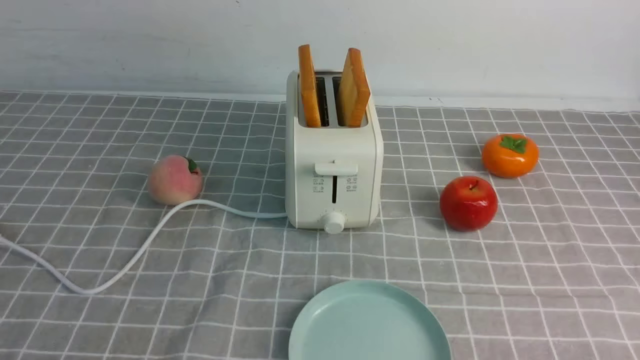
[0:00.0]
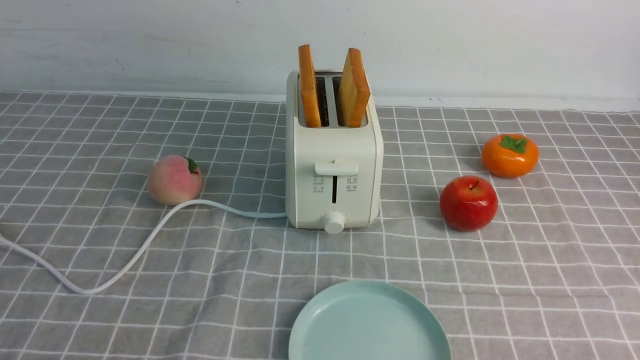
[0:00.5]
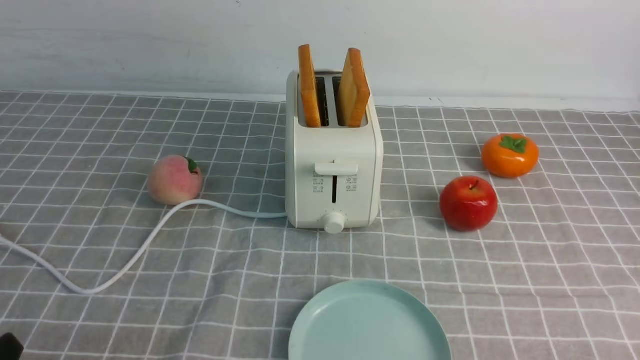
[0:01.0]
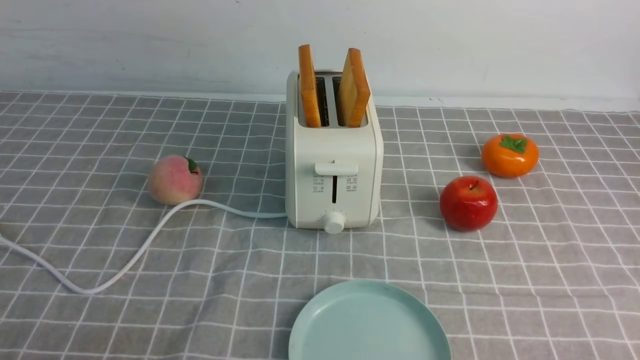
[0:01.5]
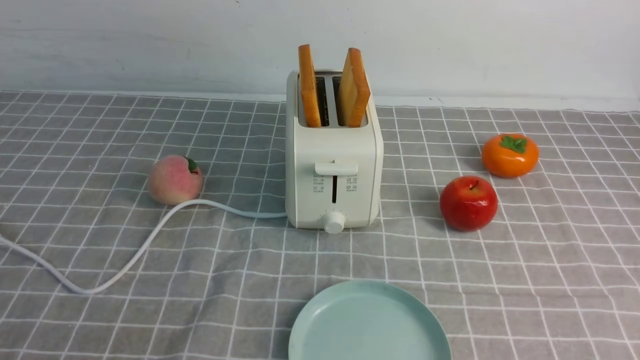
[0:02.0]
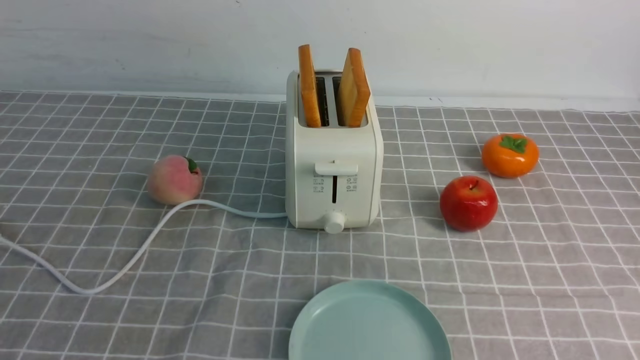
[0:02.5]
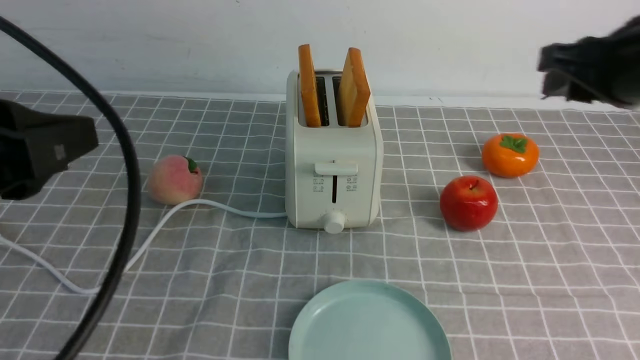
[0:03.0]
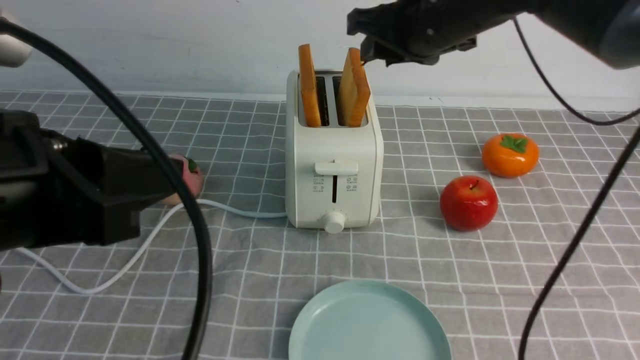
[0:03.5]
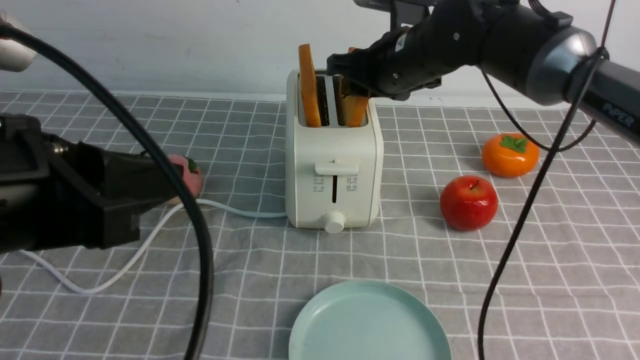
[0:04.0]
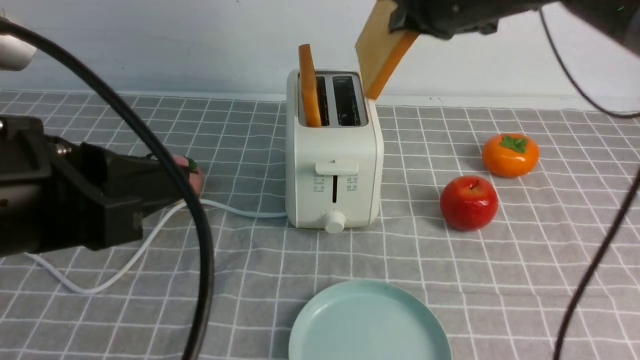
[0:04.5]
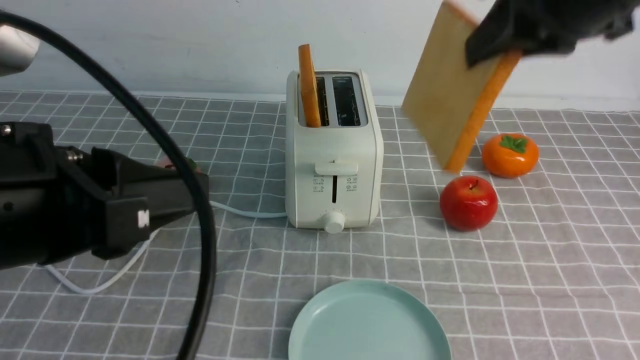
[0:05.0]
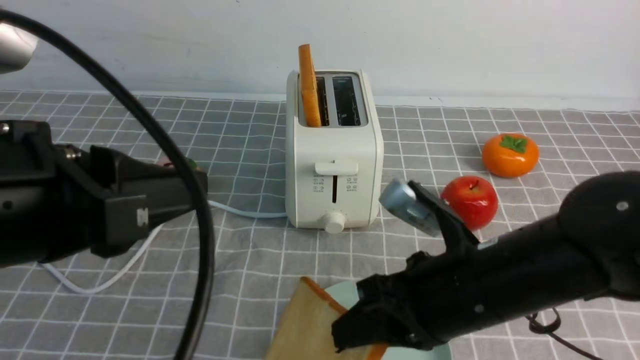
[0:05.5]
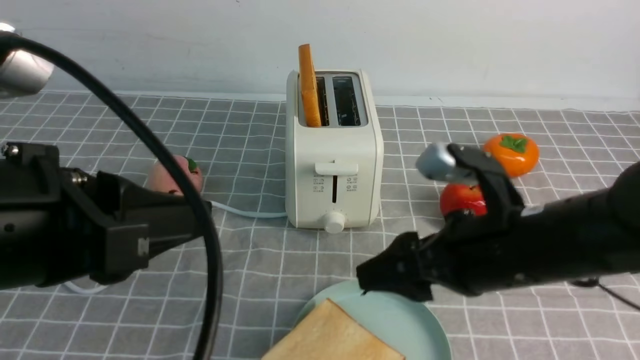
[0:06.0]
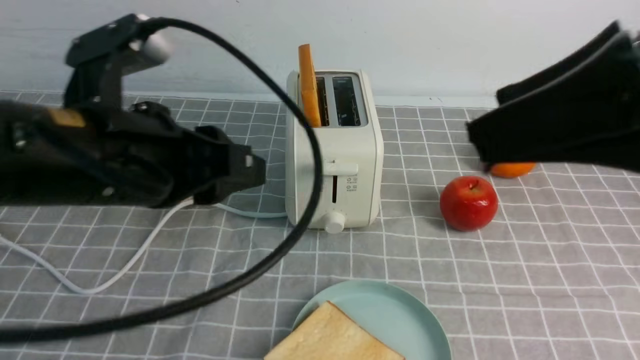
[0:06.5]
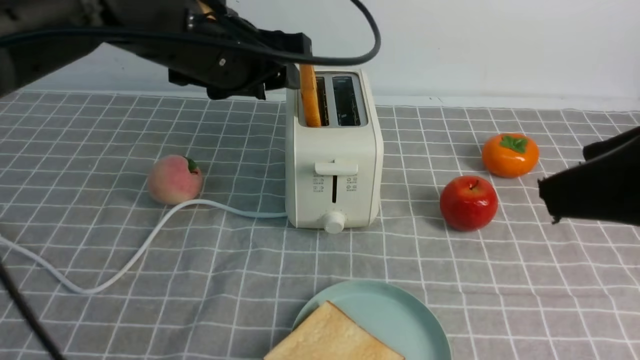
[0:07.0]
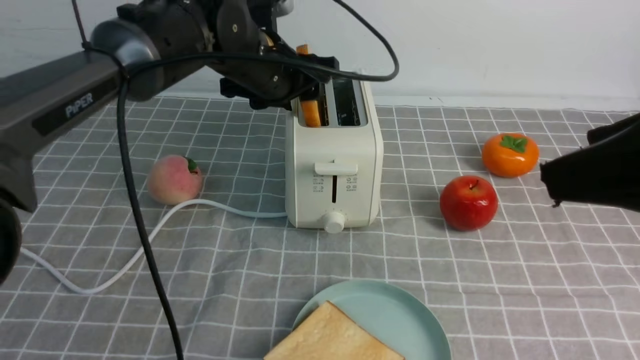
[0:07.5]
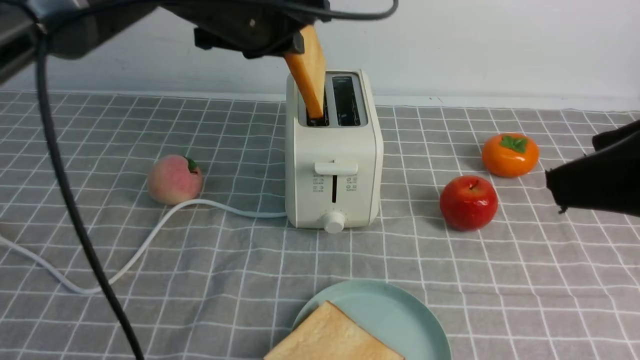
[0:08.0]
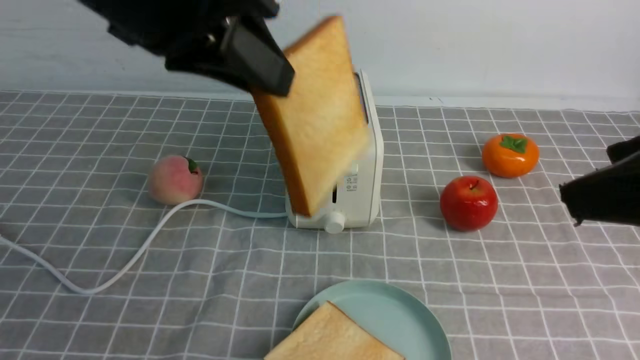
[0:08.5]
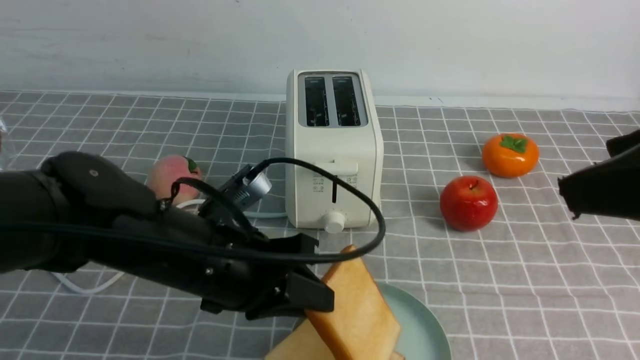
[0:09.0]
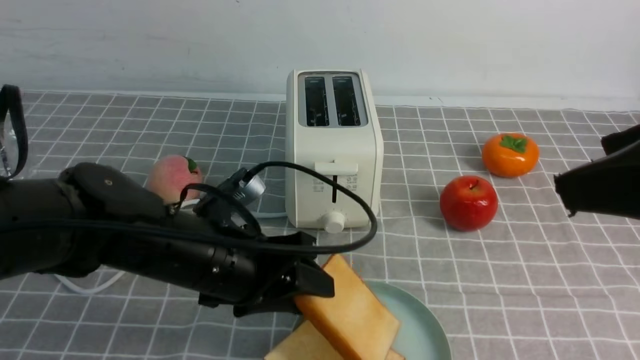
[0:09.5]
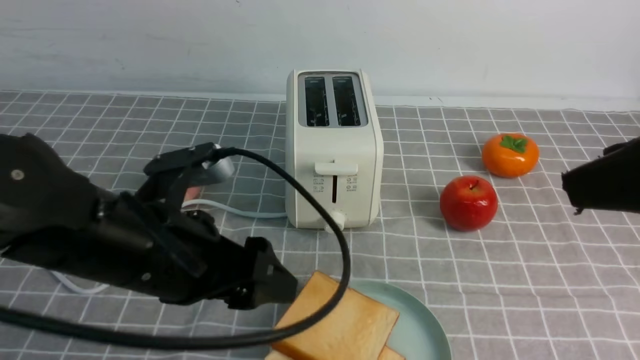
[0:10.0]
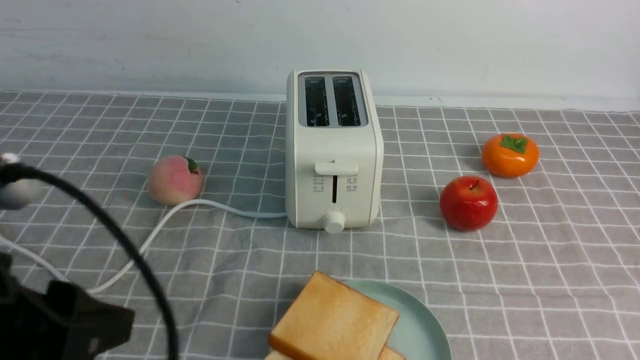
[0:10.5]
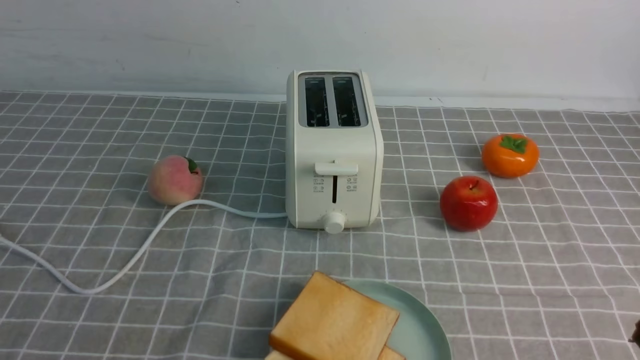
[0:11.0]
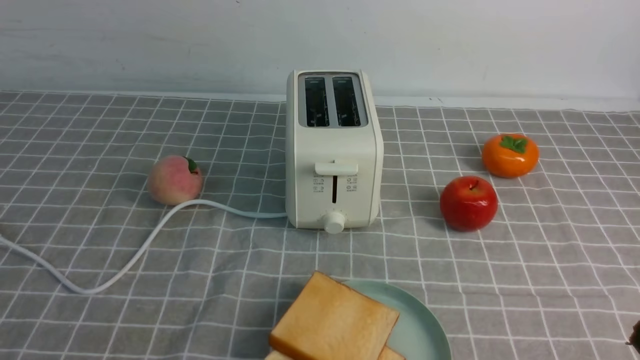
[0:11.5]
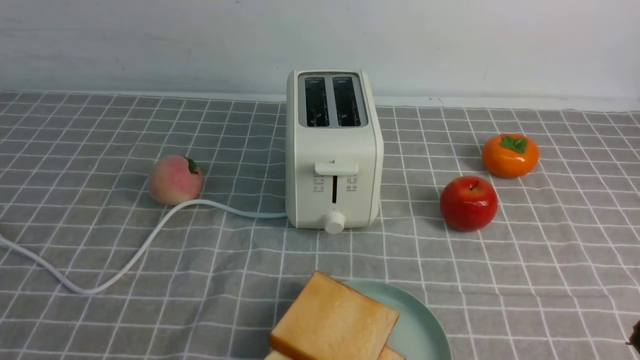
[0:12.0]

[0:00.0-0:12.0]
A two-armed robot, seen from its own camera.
Task of the whole recording: take toasted bread from bread machine on grey coffee table place on plate.
Step, 0:00.0 to 0:04.5: use the right arm to take out a slice of bread.
Step, 0:05.0 to 0:06.0: use the right arm to put a slice of bread into the plate.
Step, 0:06.5 to 0:08.0: use the left arm to take out a slice of bread.
Step, 0:08.5 to 0:09.5: use the left arm to put a slice of bread into the empty plate.
0:02.0 to 0:04.0: The right gripper heads forward and to the left, covering roughly 50 cm. Meanwhile the left gripper goes approximately 15 cm forward, upward and to the right.
0:04.0 to 0:06.0: The right gripper travels backward by about 20 cm, and opens up.
0:06.0 to 0:08.0: The left gripper heads forward, covering about 25 cm. Meanwhile the right gripper is displaced upward, backward and to the right by approximately 20 cm.
0:08.0 to 0:10.0: The left gripper travels backward and downward by roughly 20 cm, and opens up.
0:10.0 to 0:12.0: The left gripper heads backward and to the left, covering some 25 cm, and closes its fingers; the right gripper heads downward, covering approximately 20 cm, and closes.

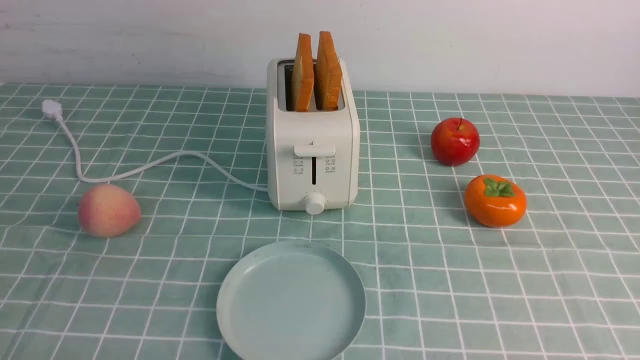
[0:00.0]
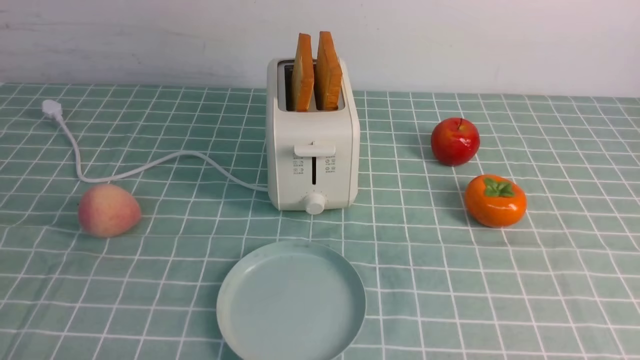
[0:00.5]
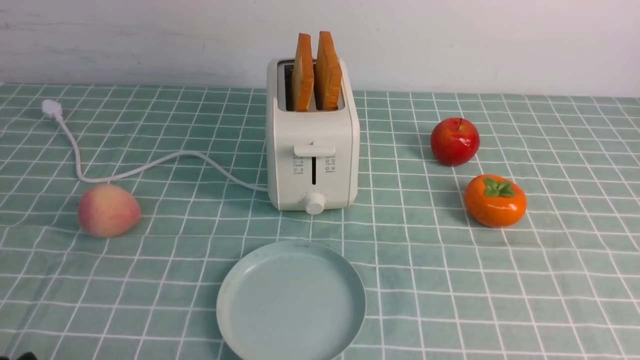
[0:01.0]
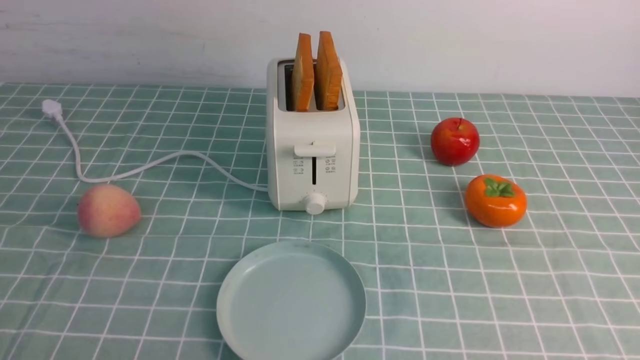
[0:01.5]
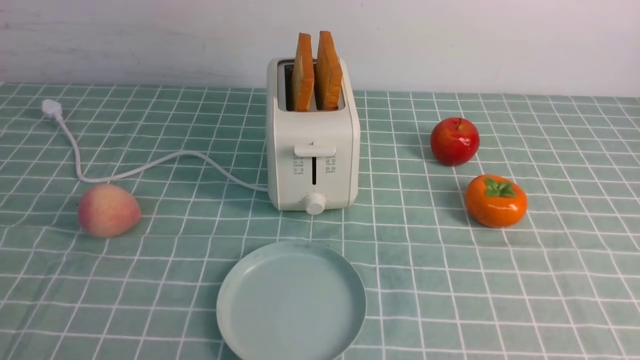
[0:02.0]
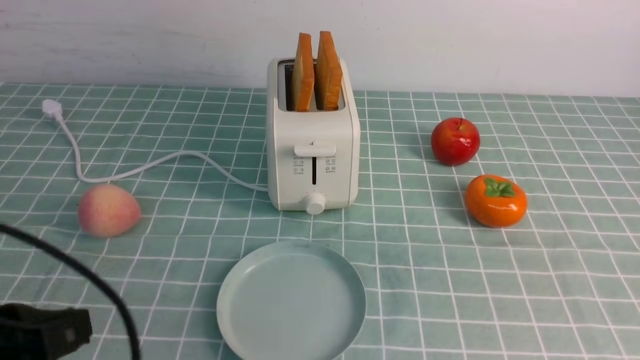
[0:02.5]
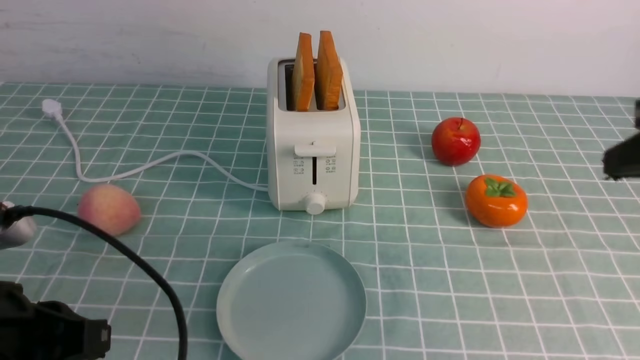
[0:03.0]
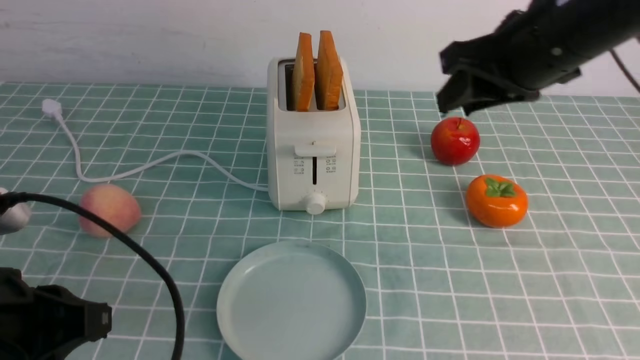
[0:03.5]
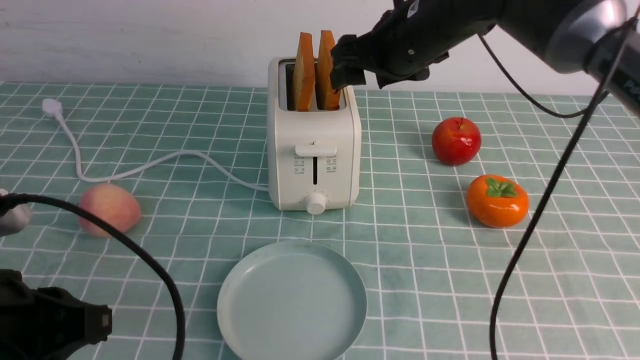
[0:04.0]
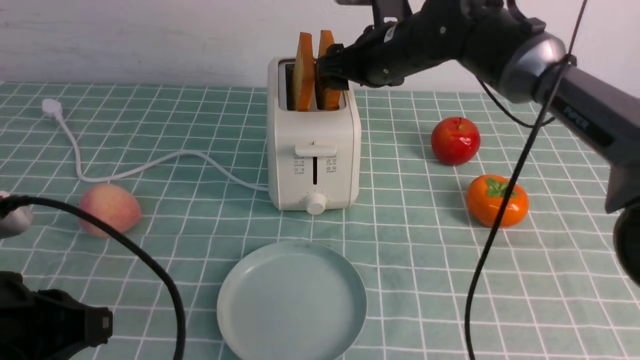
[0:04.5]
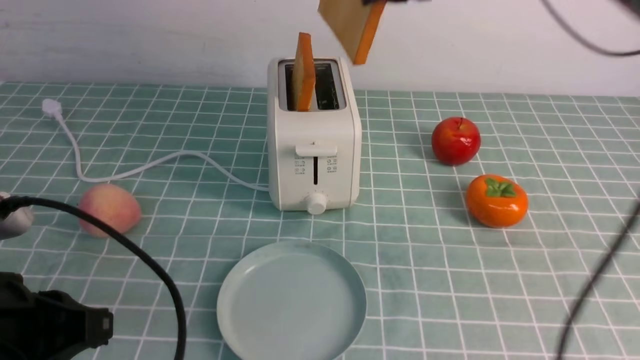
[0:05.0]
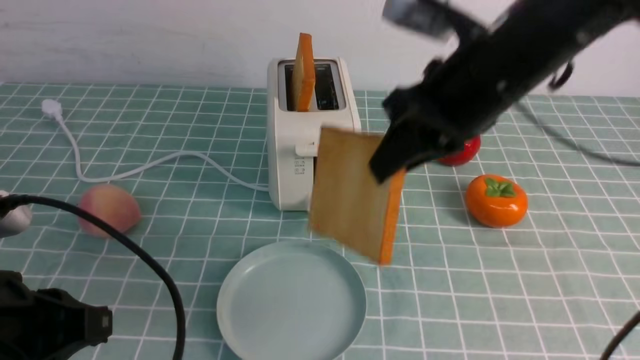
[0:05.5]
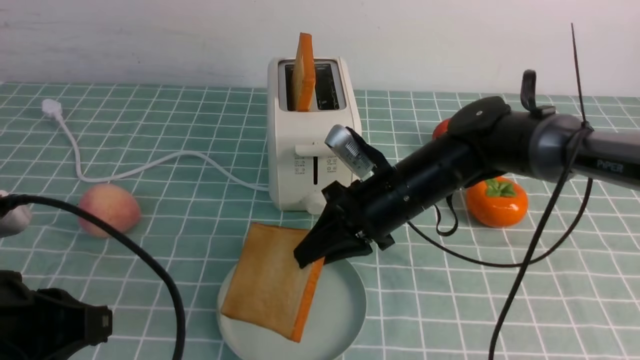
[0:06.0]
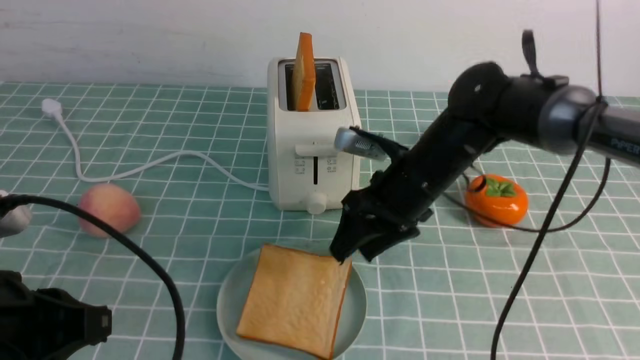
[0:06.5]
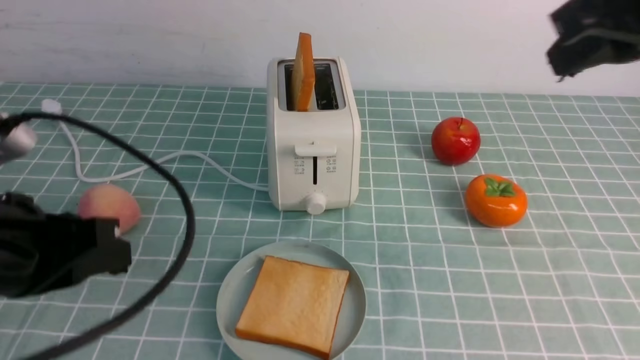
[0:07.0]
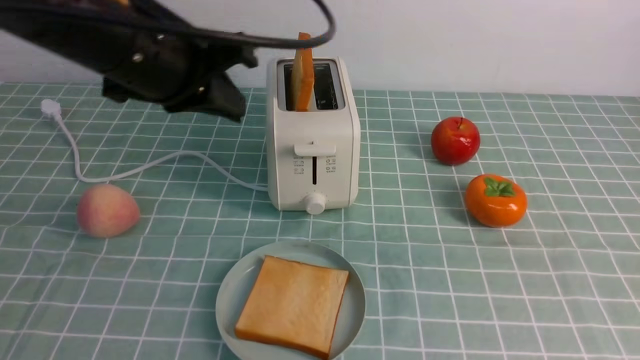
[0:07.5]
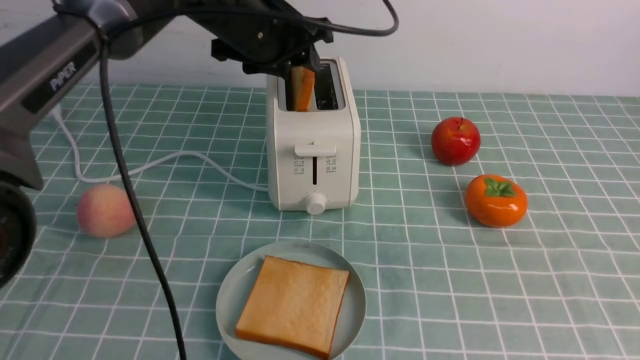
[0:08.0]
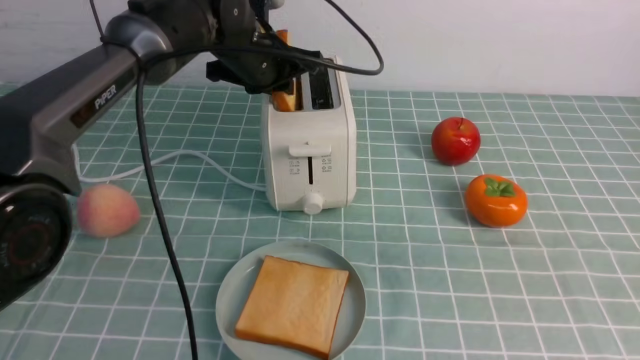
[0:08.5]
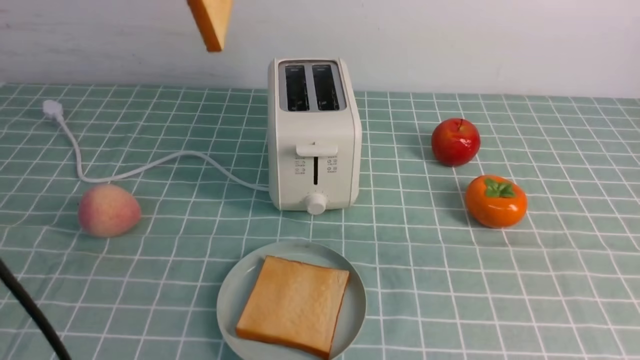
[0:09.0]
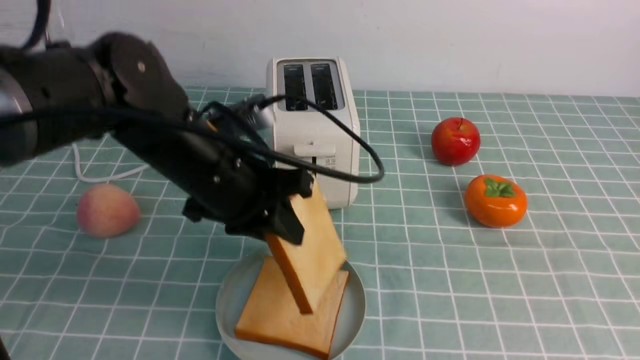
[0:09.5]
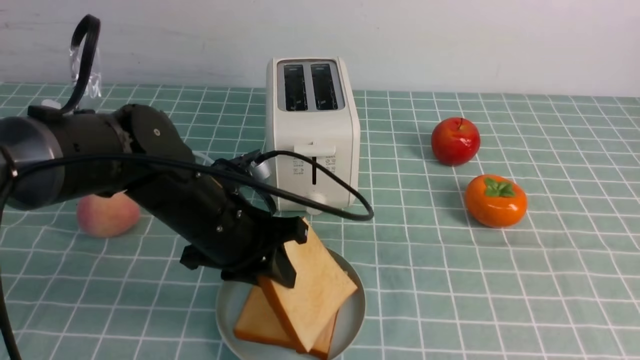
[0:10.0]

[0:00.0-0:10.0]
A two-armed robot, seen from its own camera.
Task of the whole recording: take toasted bread from bread machine on blue coffee table place on plate.
Step, 0:00.0 to 0:05.0: use the right arm to take out a slice of bread.
Step, 0:05.5 to 0:06.5: use the right arm to put a slice of bread into the plate.
Step, 0:07.0 to 0:08.5: use the left arm to take out a slice of bread.
0:02.0 to 0:04.0: The left gripper moves forward and upward, roughly 10 cm, while the right gripper shifts some 40 cm forward and to the left, and opens up.
0:04.0 to 0:06.0: The right gripper goes up and down, about 15 cm each way, reversing 2 times, and closes up.
0:06.0 to 0:08.0: The right gripper is displaced backward, to the right and upward by roughly 40 cm, and opens, then closes once more; the left gripper heads forward and to the right, covering roughly 30 cm, and opens its fingers.
0:08.0 to 0:10.0: The left gripper moves up and down over about 20 cm, changing direction 2 times.
